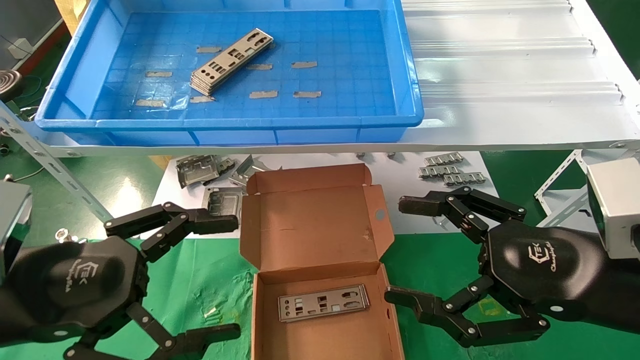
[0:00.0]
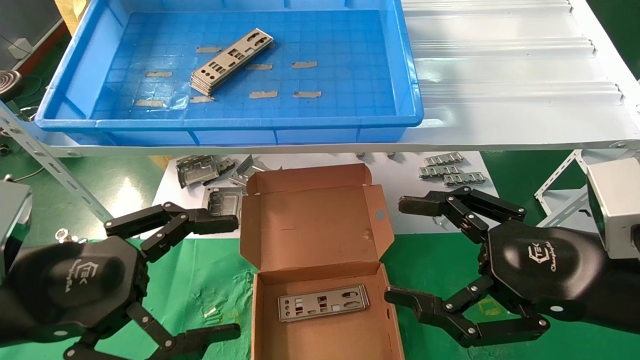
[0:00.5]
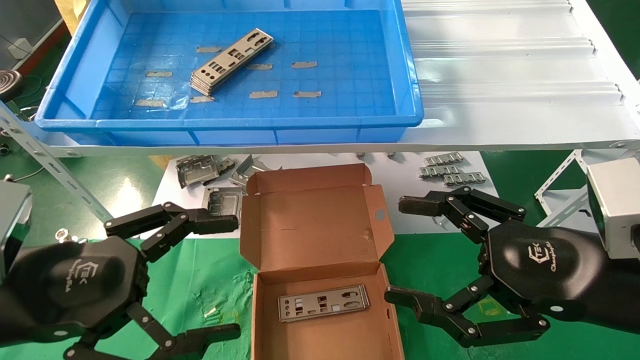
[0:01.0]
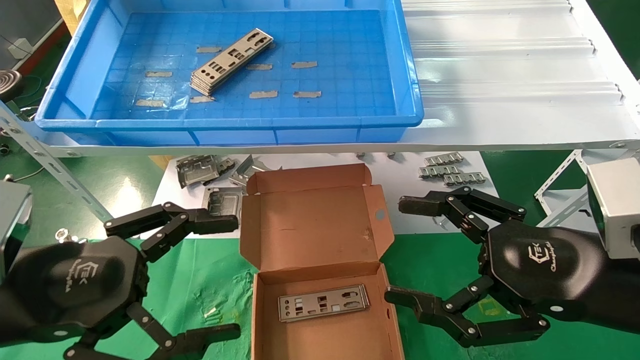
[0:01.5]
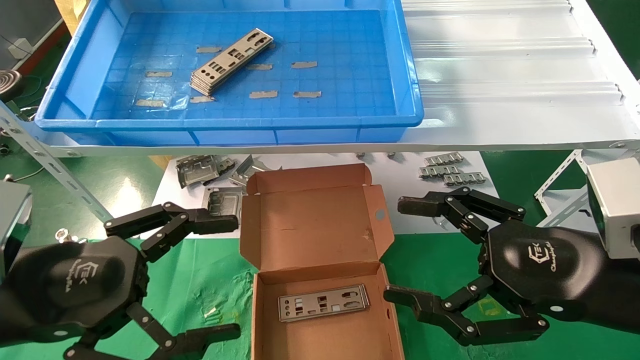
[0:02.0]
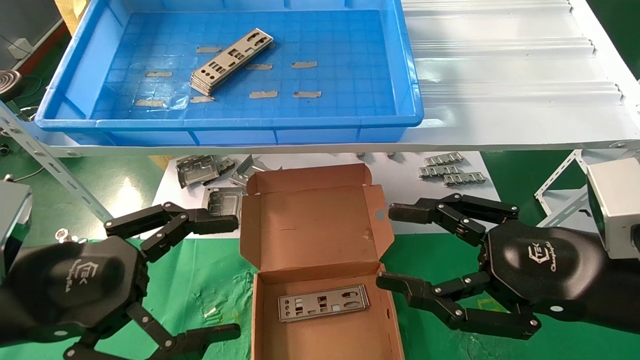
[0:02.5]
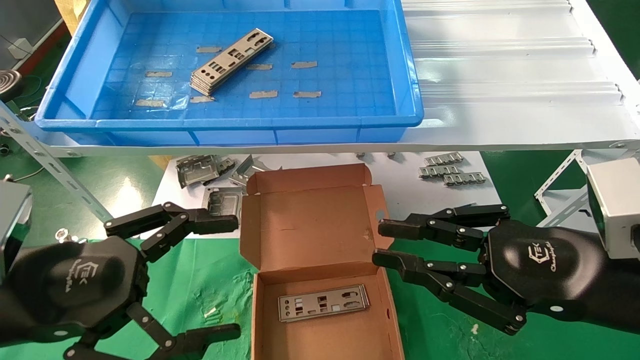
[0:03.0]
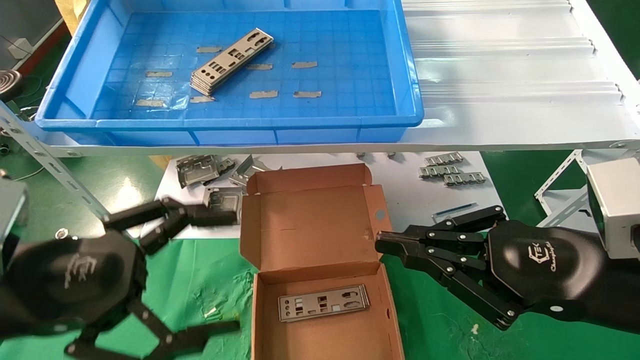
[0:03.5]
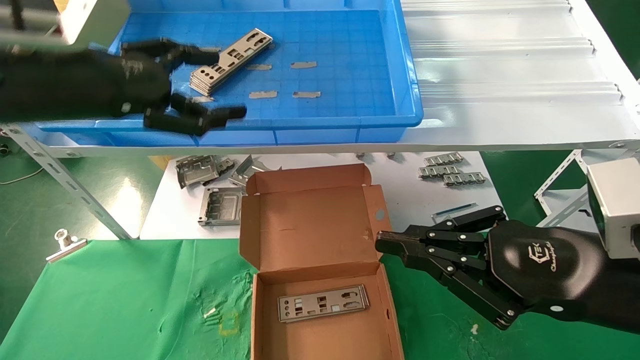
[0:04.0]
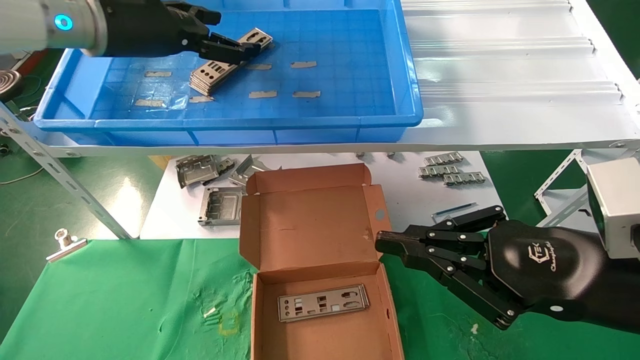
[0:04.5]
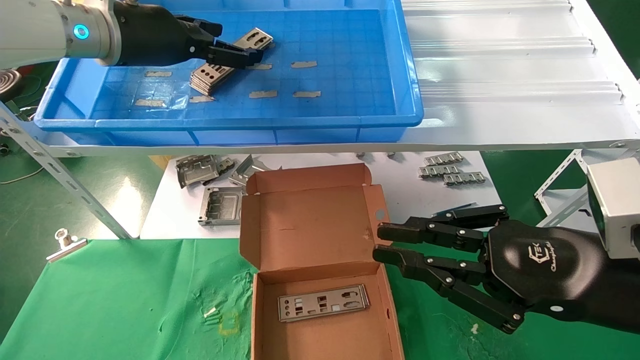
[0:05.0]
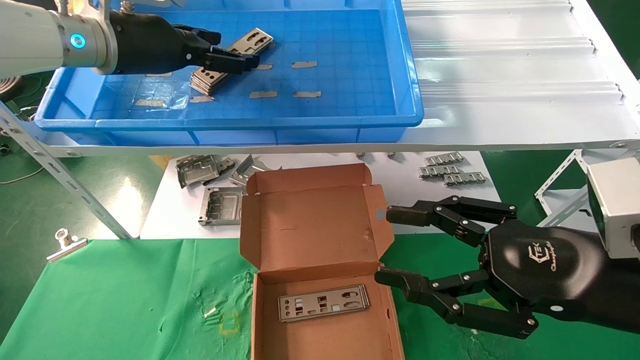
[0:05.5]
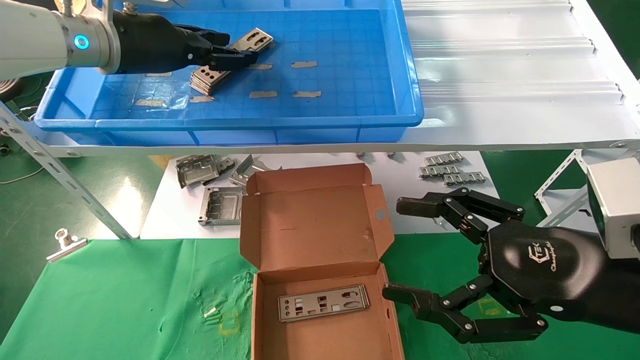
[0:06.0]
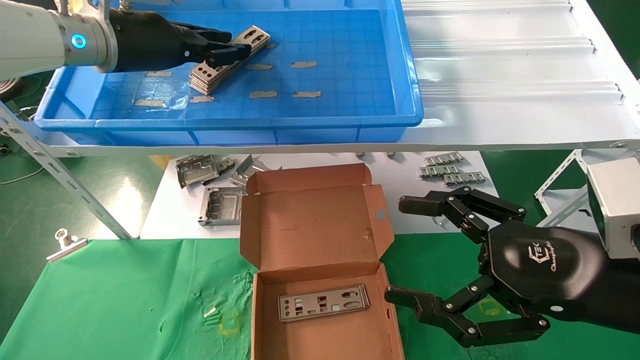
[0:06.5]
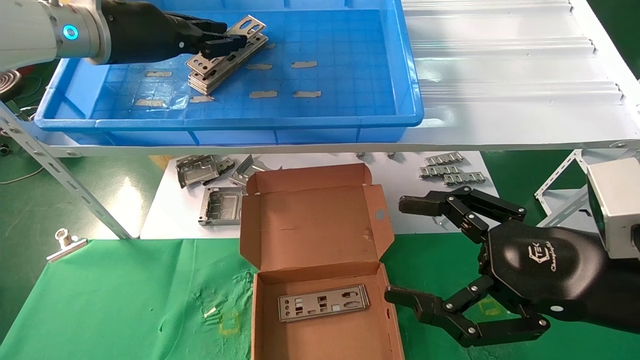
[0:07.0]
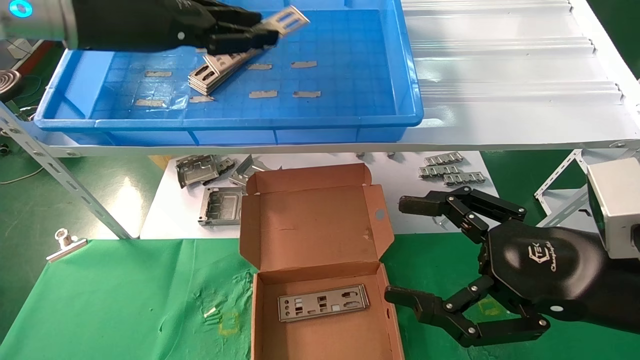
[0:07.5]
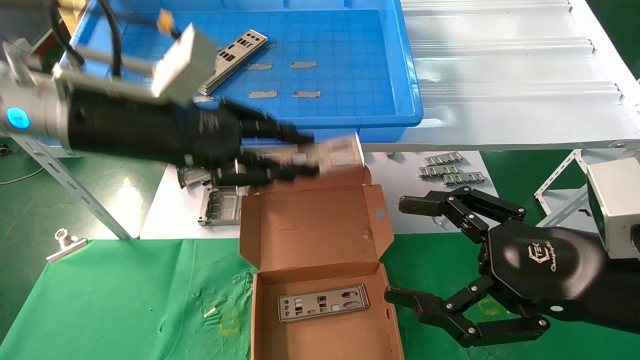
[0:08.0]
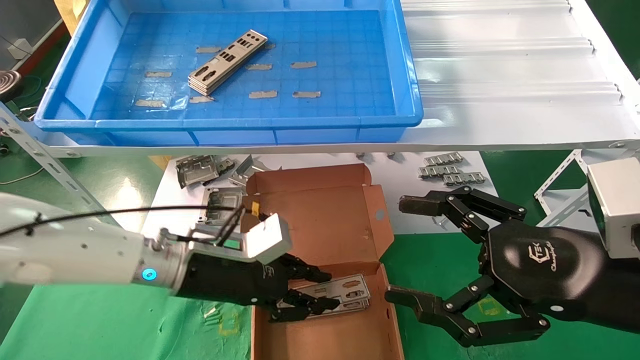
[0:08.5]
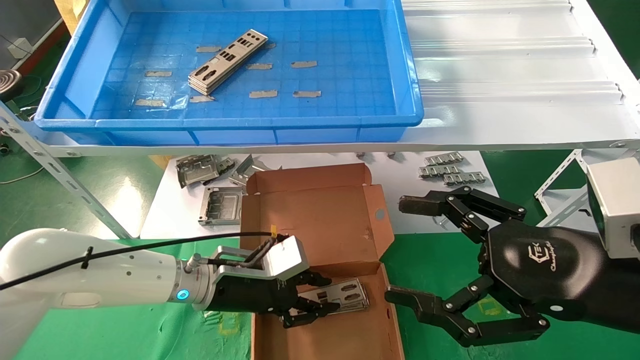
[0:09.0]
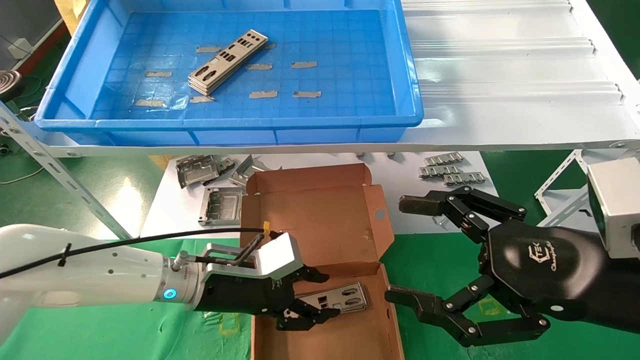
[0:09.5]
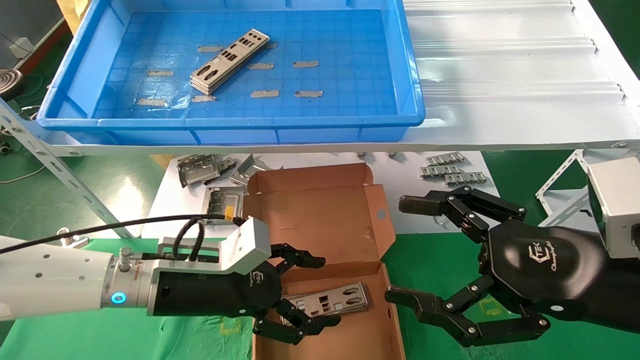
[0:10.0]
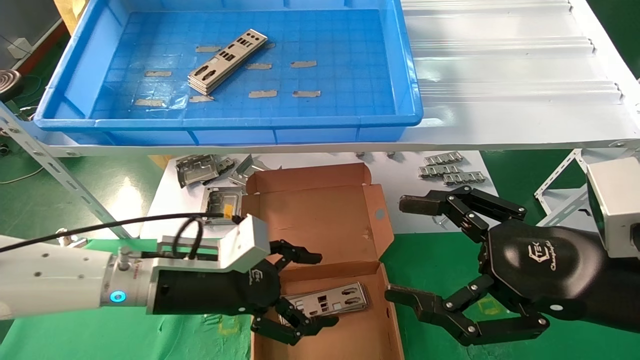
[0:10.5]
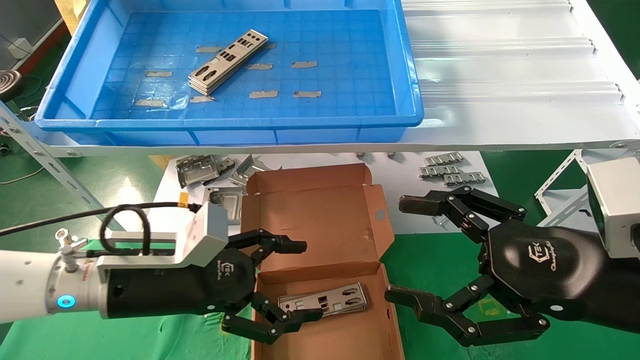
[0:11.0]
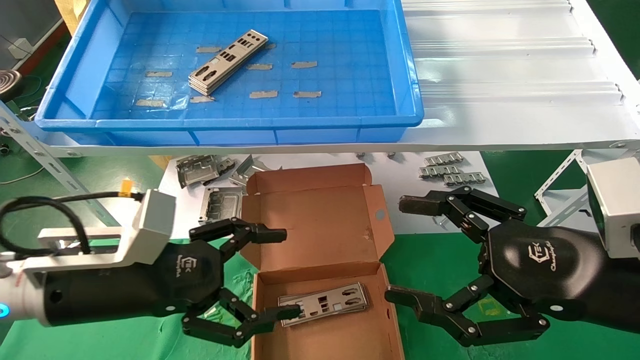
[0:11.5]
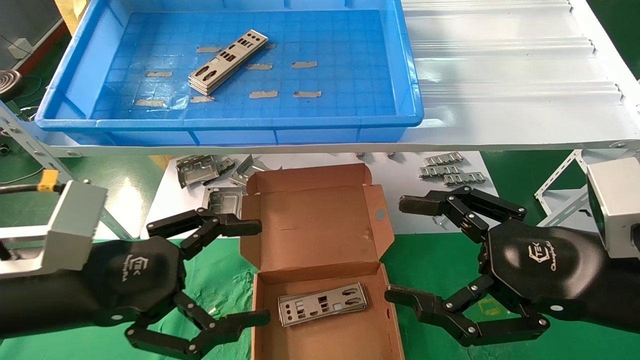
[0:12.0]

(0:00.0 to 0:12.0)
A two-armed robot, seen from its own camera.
Task of the whole recording: pick up the parts on the tray and put them in the cardboard box.
Step, 0:04.0 - 0:06.0: Pick up the IO bracket from the container box.
Step, 0:06.5 - 0:09.0: Place the IO bracket into the ingredient slot.
0:00.0 - 0:02.0: Both grippers stay put.
0:02.0 - 0:04.0: The left gripper goes about 20 cm upward and forward. The right gripper closes.
0:04.0 - 0:06.0: The right gripper opens up; the left gripper travels forward by some 10 cm, and closes its fingers.
0:06.0 - 0:08.0: The left gripper heads backward and downward, covering some 15 cm, and closes.
0:08.0 - 0:10.0: The left gripper heads downward, covering approximately 20 cm, and opens its fingers.
0:10.0 - 0:12.0: The left gripper moves backward, to the left and upward, about 15 cm.

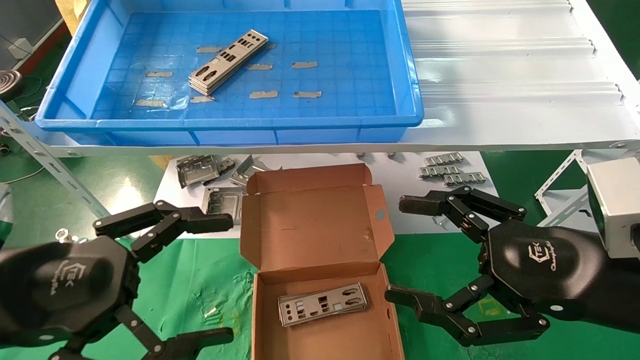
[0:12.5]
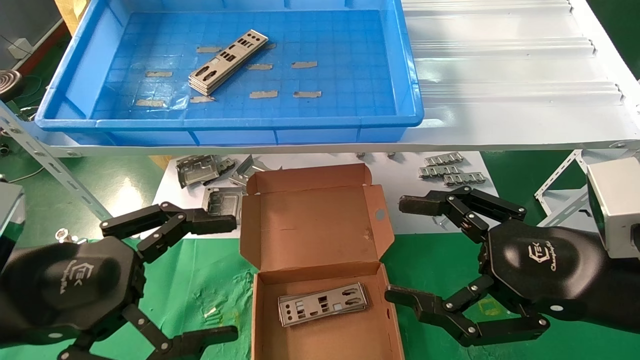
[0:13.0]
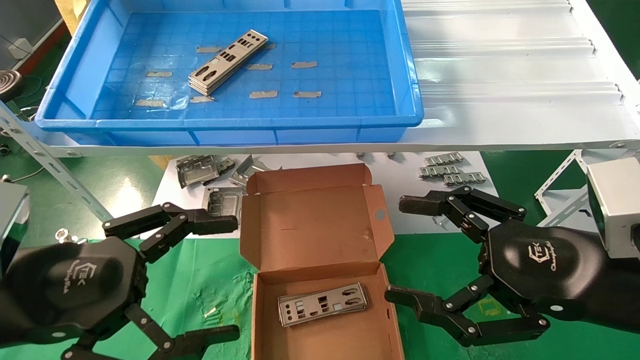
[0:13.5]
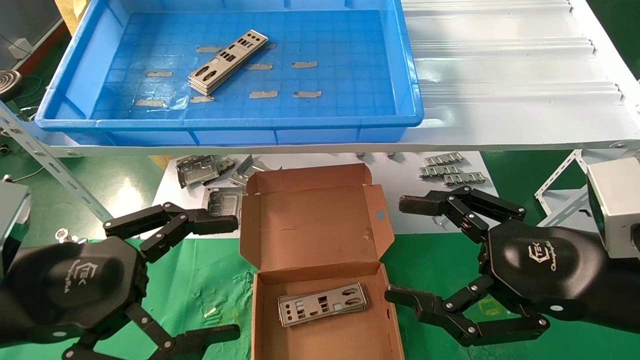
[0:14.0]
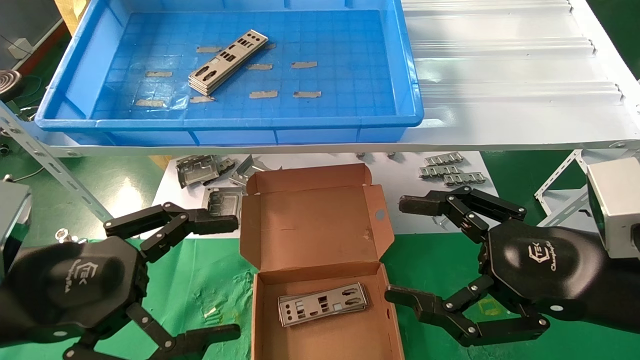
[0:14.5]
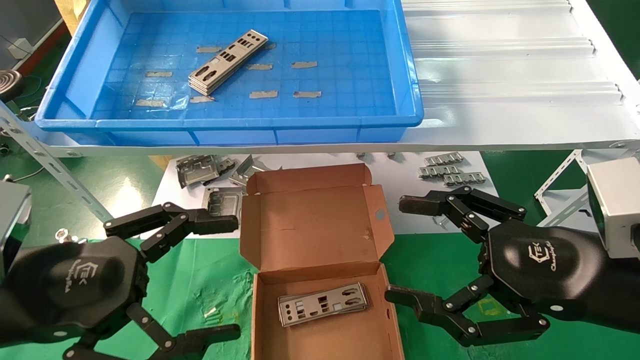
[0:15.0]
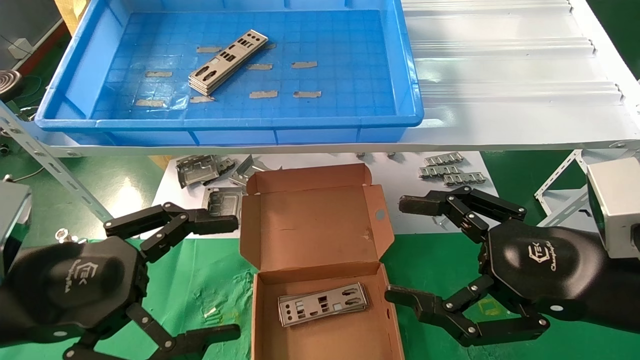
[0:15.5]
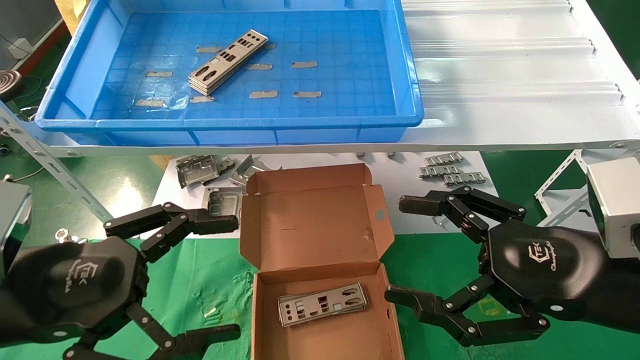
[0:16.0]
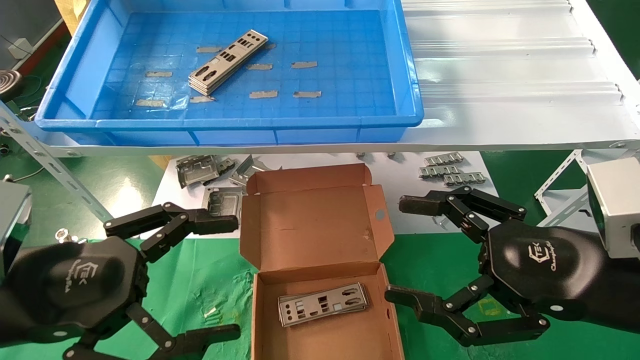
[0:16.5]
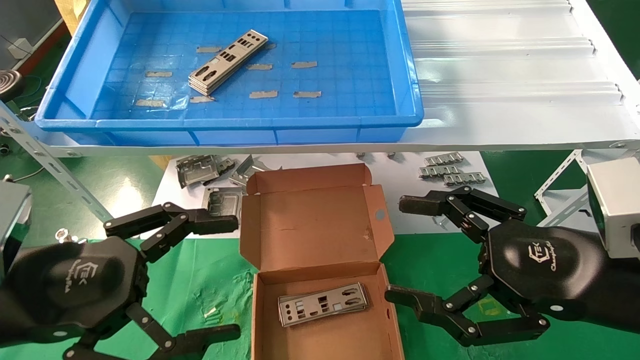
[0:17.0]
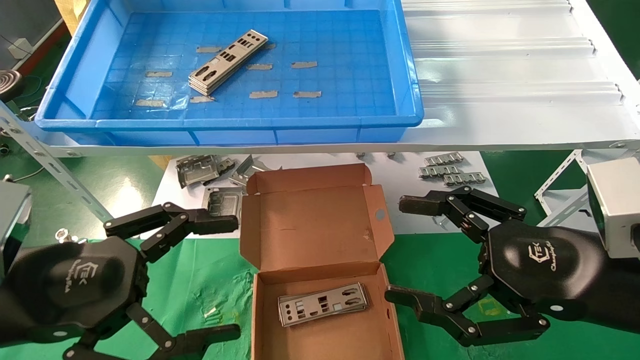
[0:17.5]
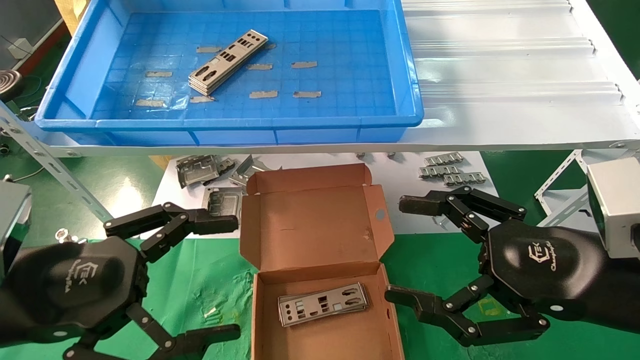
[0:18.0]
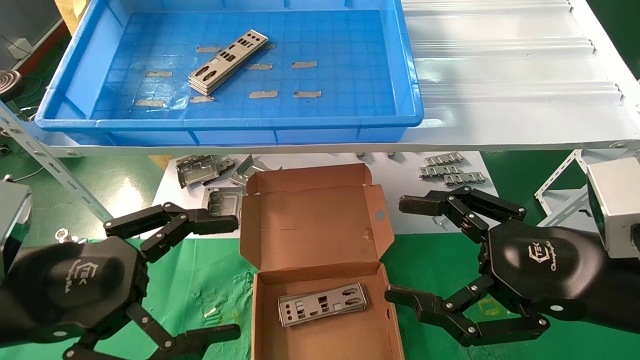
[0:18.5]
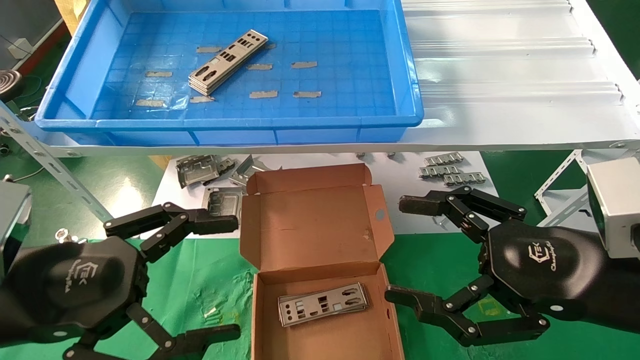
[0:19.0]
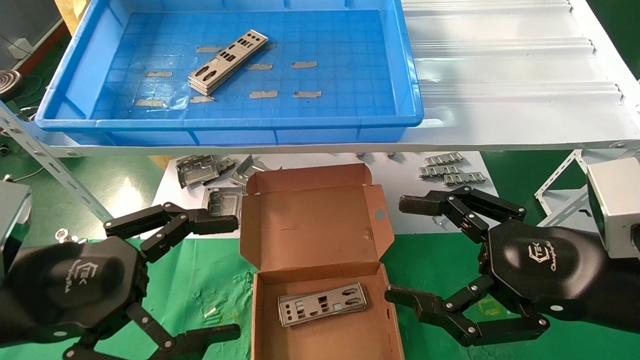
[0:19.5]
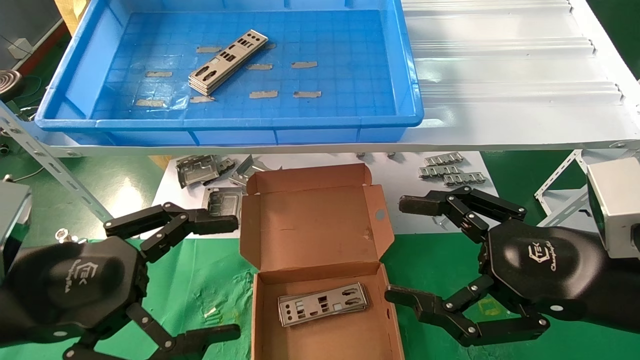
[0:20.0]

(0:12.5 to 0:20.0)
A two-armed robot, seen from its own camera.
Task of the whole recording: pick up the parts on the tray and put them in the cardboard box.
0:12.5 - 0:20.0: Both grippers stay about where they are.
